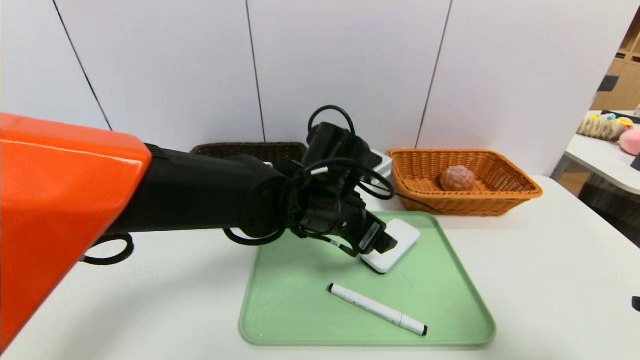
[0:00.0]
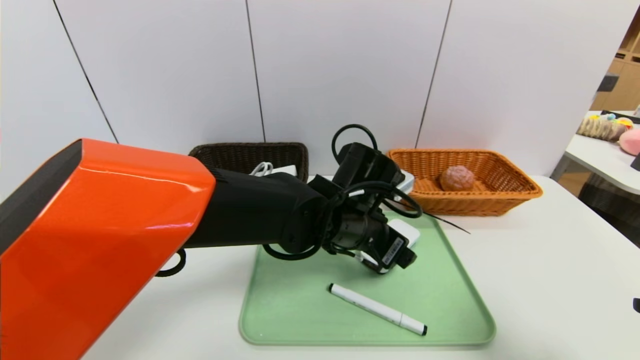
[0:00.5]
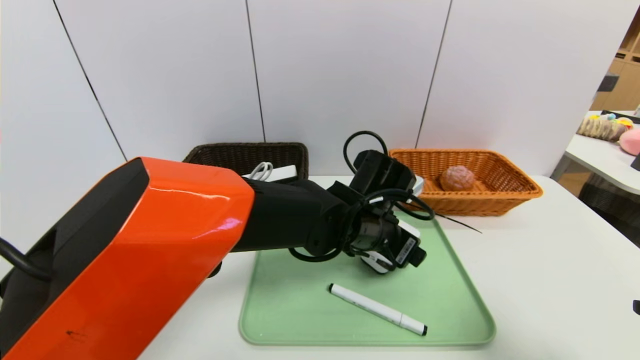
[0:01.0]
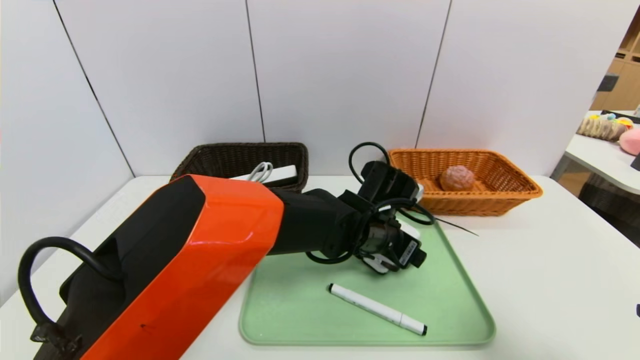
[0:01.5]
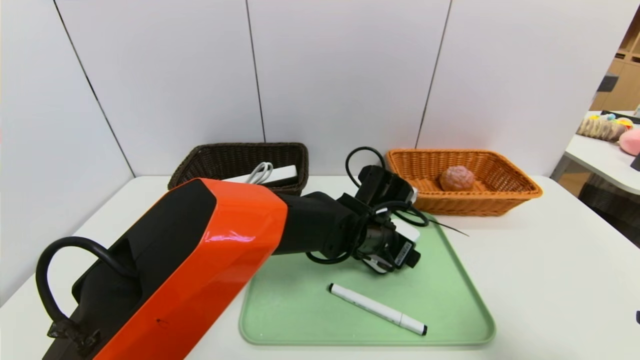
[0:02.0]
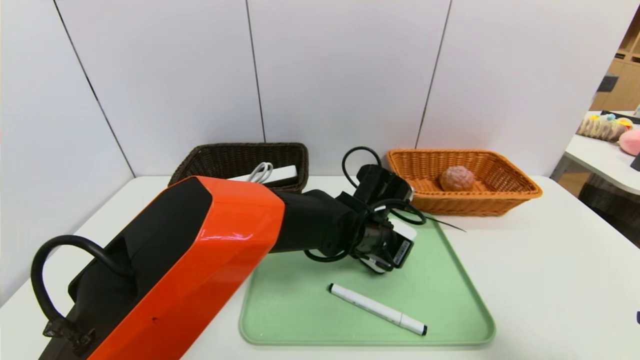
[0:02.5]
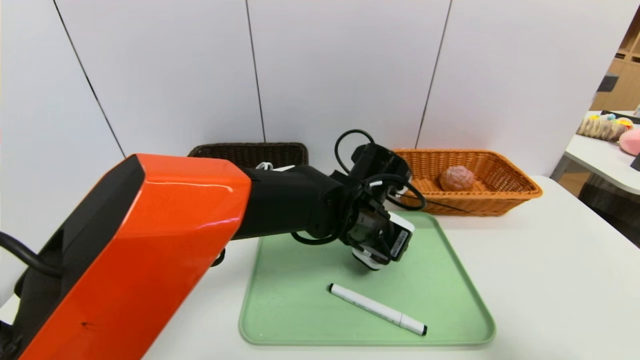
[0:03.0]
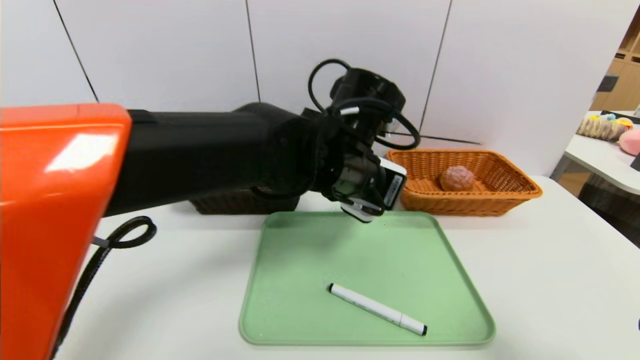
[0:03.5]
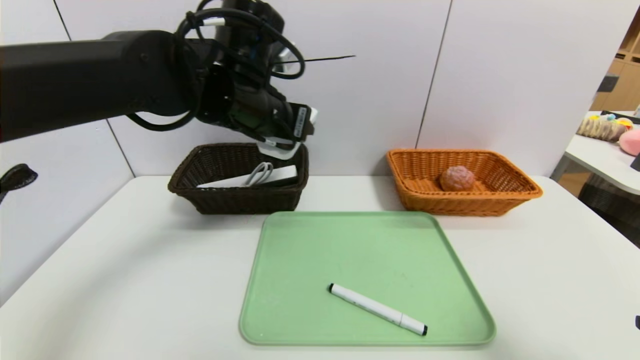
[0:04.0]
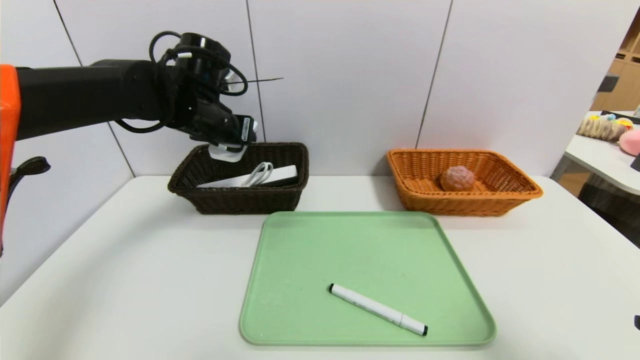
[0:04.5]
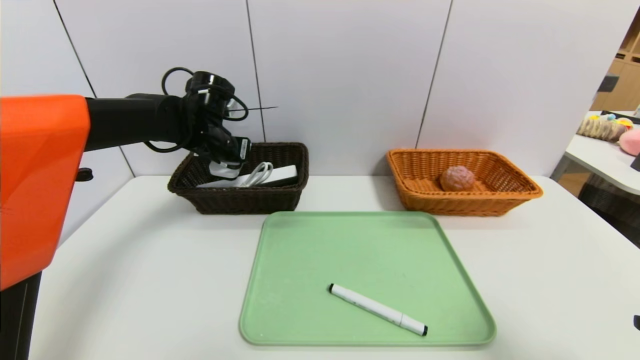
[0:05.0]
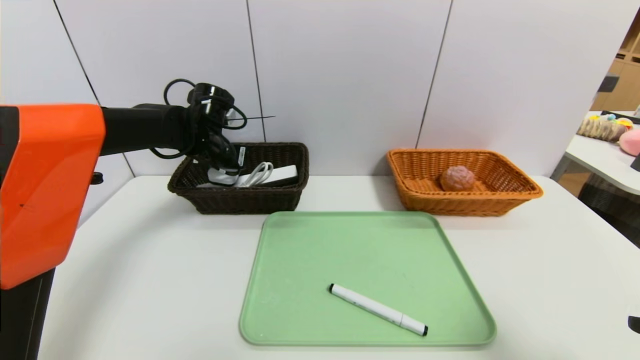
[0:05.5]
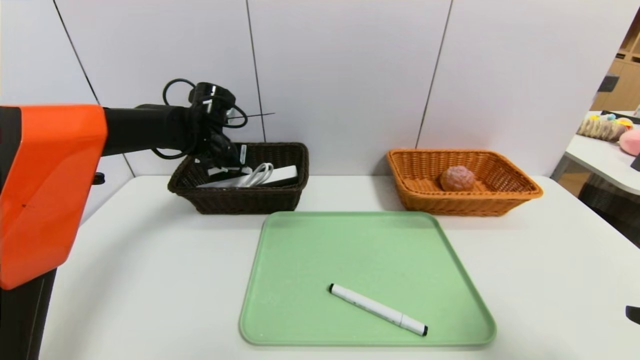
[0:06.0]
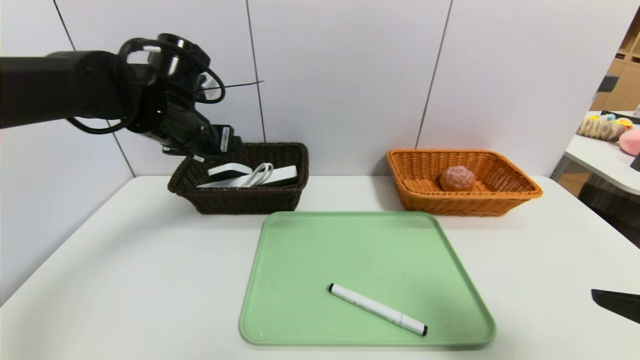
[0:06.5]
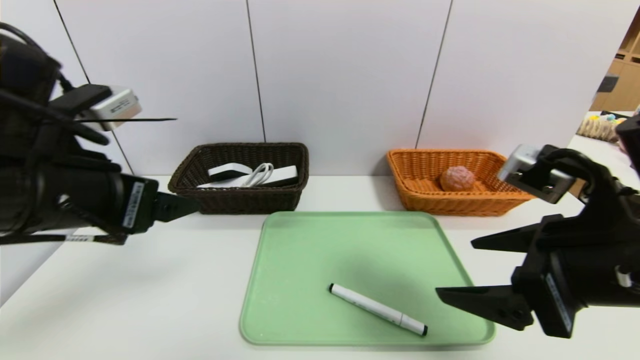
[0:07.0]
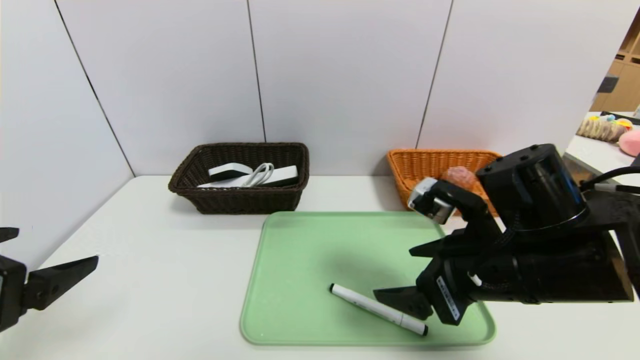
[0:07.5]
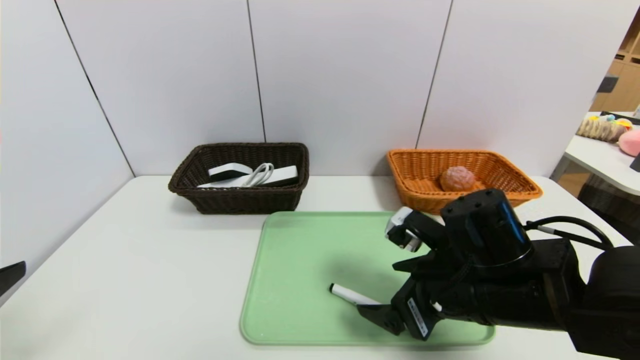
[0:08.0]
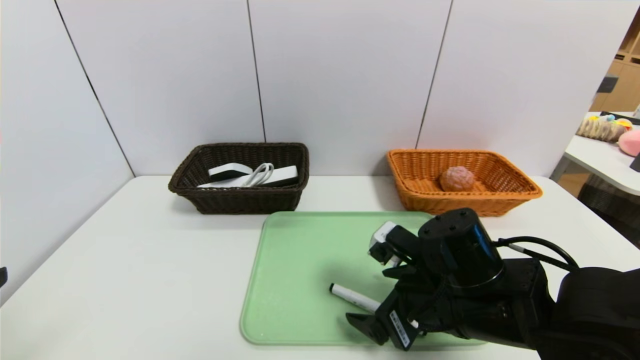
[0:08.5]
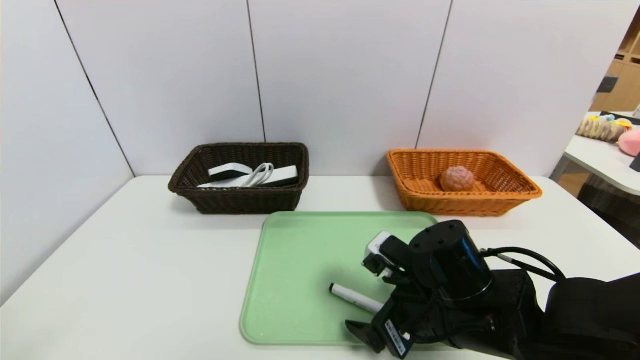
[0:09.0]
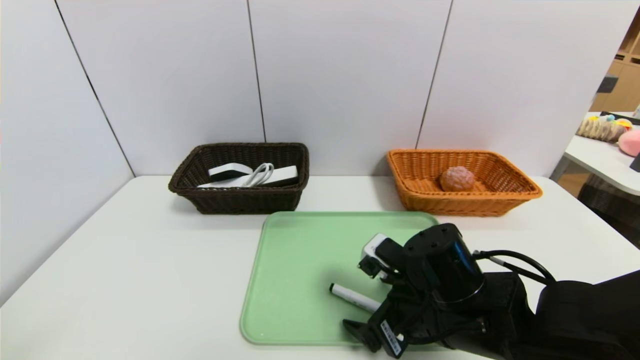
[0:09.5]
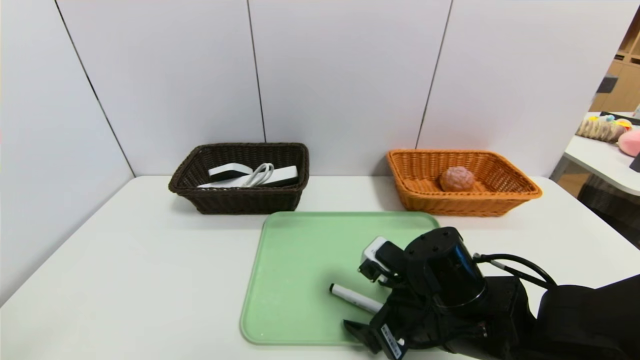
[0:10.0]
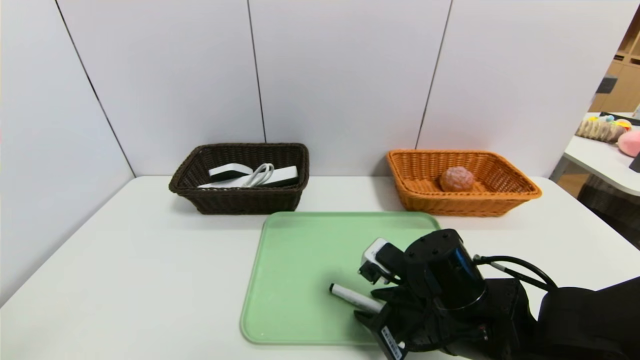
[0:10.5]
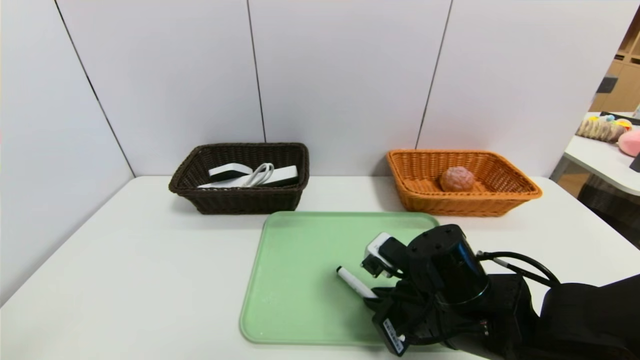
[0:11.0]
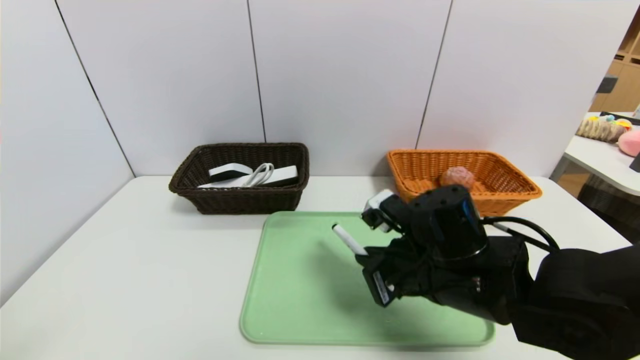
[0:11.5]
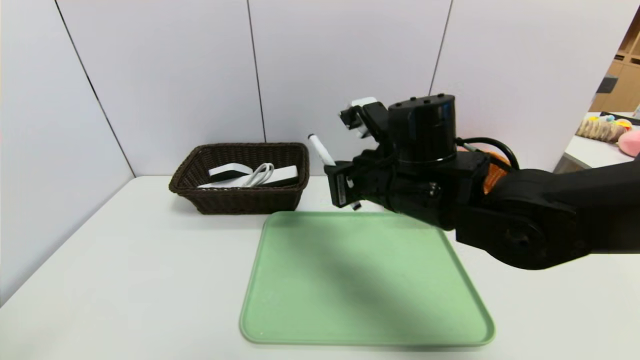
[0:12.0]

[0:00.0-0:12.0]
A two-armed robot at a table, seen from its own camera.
Task of the whole recording: place the food in the right basket with the right gripper, and place the non food items in the left basket with the left gripper.
Step, 0:00.0 to 0:06.5: Grasp the white eraser and put it in the left basket.
0:00.0 to 0:02.0: The left gripper goes roughly 10 cm downward and to the right.
0:02.0 to 0:04.0: The left gripper goes about 25 cm upward and to the left, and closes up.
0:04.0 to 0:06.0: The left gripper is displaced forward, to the left and downward by some 20 cm.
0:06.0 to 0:08.0: The left gripper goes about 40 cm backward. The right gripper travels to the left, forward and downward by about 25 cm.
0:08.0 to 0:10.0: The right gripper moves some 5 cm.
0:10.0 to 0:12.0: The right gripper is displaced upward and forward by roughly 15 cm, and closes up.

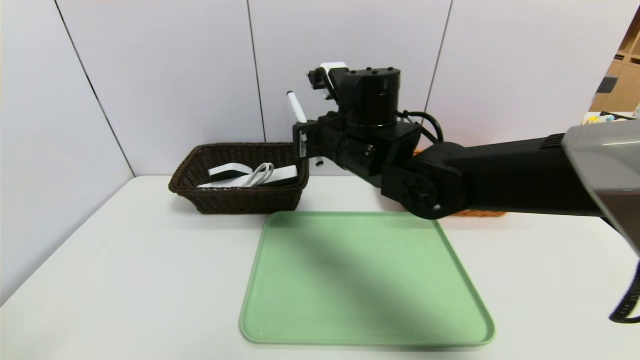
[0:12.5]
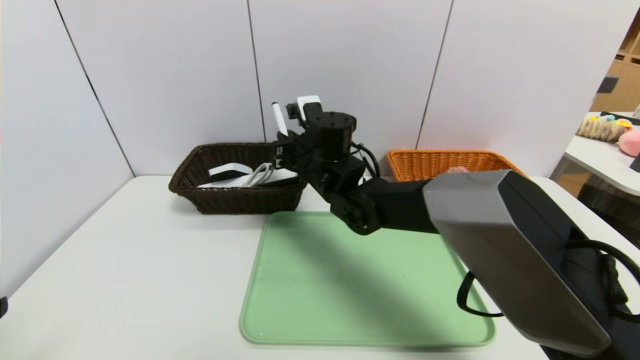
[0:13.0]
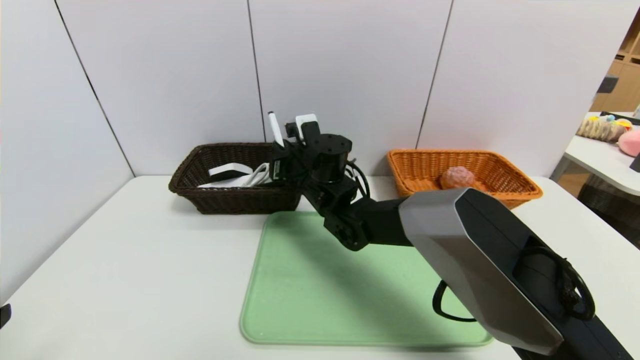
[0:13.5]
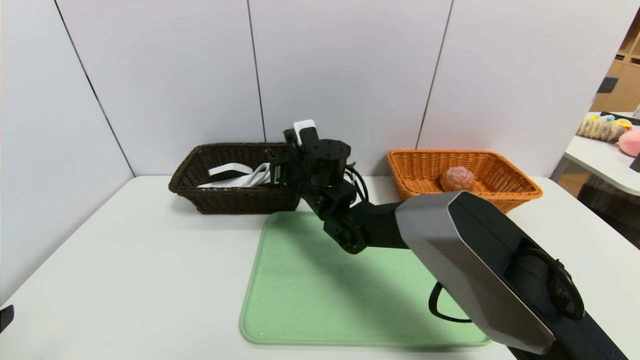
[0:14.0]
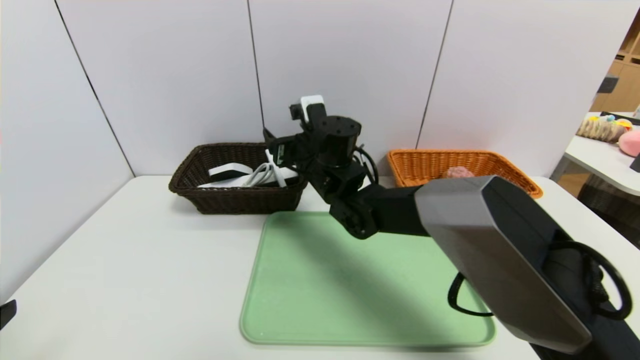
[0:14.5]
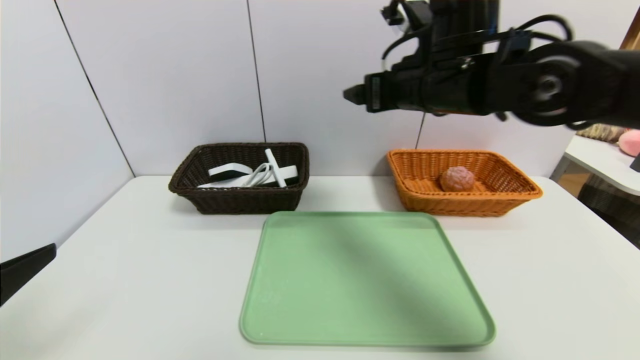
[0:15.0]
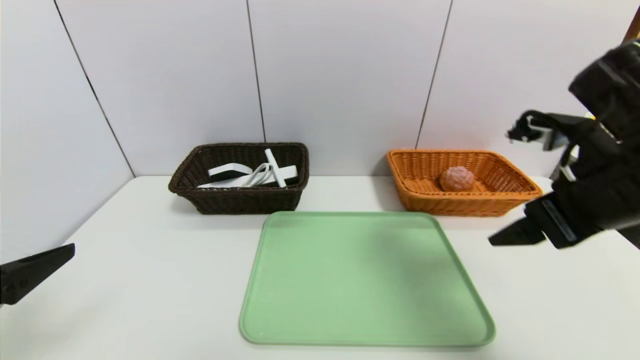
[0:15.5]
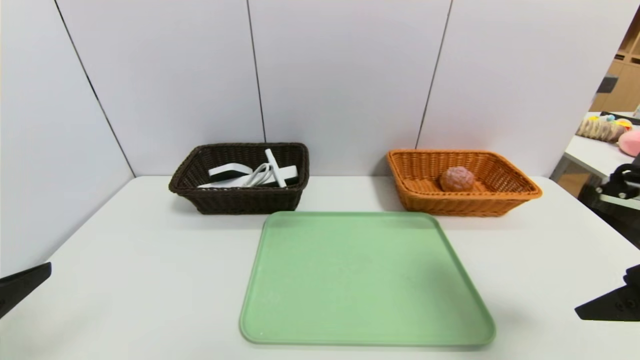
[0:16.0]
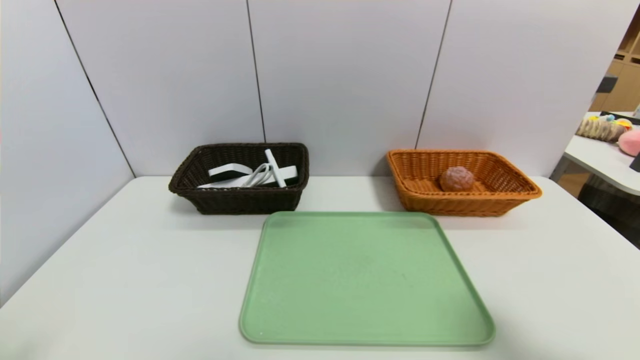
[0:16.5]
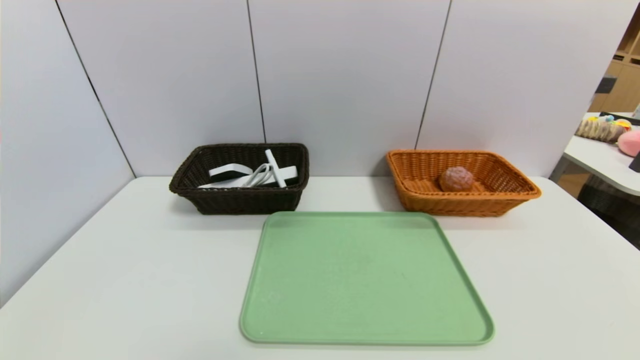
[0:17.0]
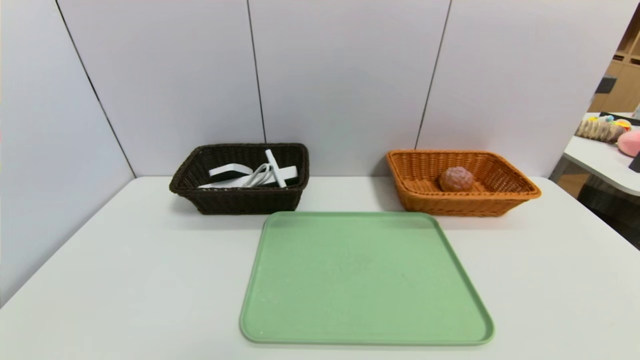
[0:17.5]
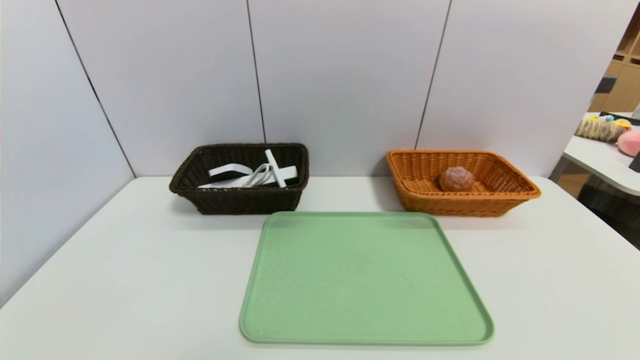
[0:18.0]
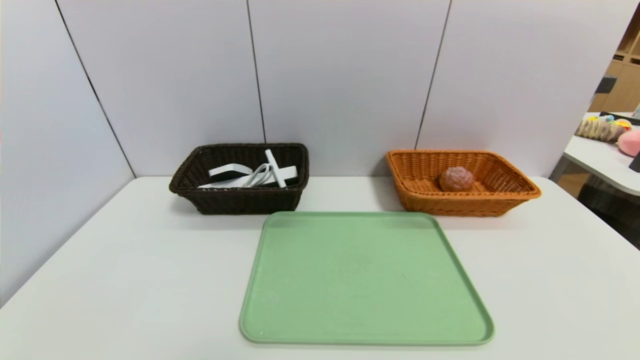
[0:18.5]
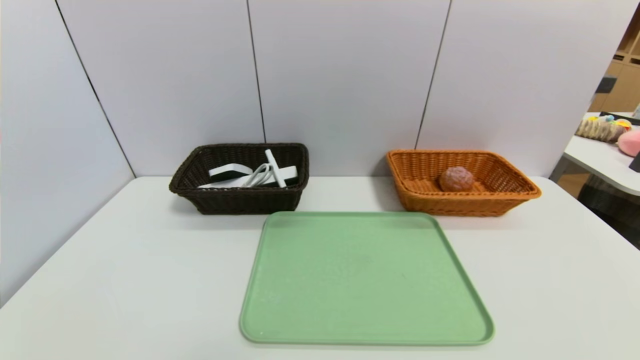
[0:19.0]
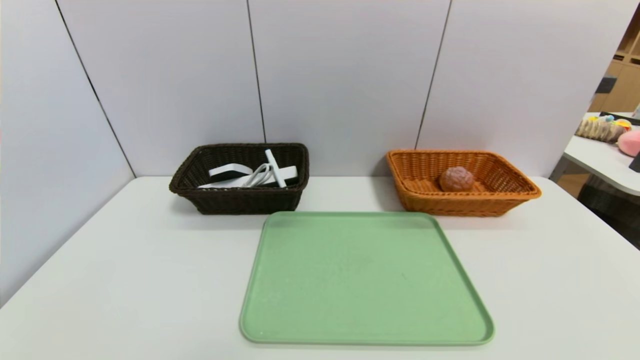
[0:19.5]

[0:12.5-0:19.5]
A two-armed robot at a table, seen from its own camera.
Task of the whole recording: place the food in the right basket with the right gripper, and place the non food items in the left basket with the left gripper.
0:12.5 to 0:14.5: The right gripper shifts about 10 cm forward and downward, and opens.
0:14.5 to 0:16.0: The right gripper goes roughly 40 cm to the right and backward.
0:16.0 to 0:17.5: The right gripper is displaced backward by roughly 20 cm; the left gripper heads backward and downward, covering roughly 15 cm.
